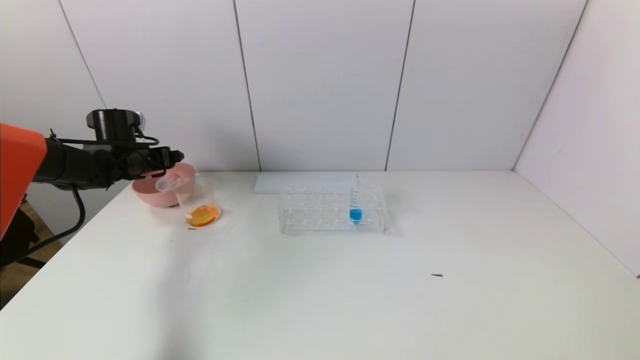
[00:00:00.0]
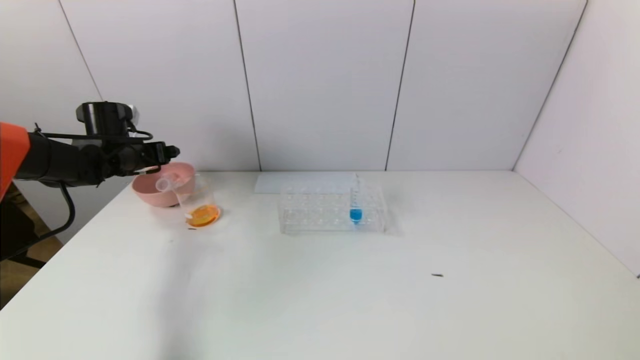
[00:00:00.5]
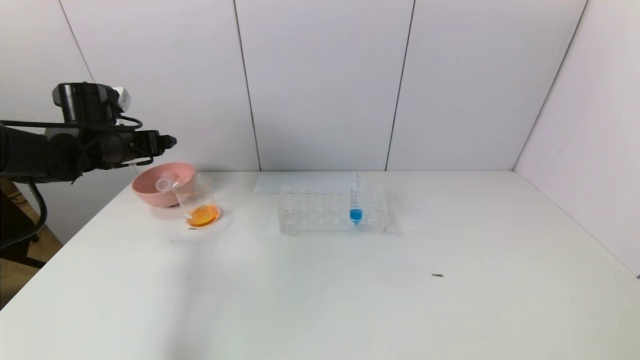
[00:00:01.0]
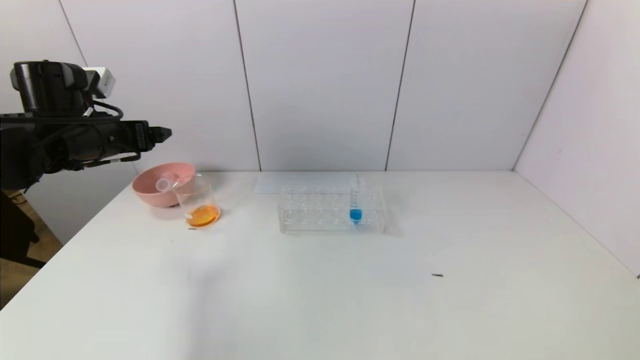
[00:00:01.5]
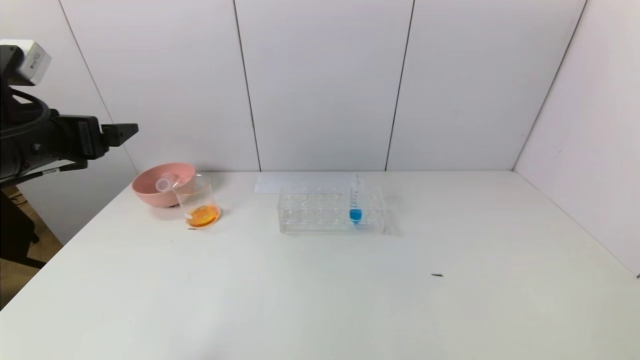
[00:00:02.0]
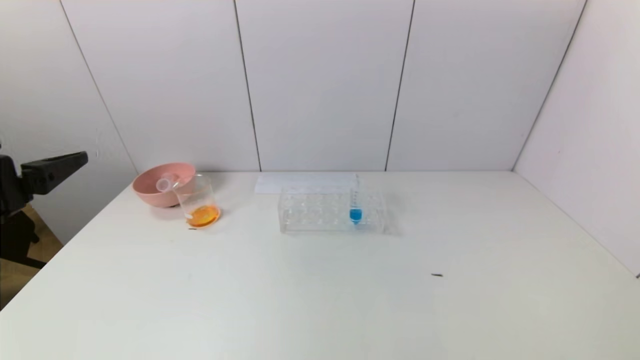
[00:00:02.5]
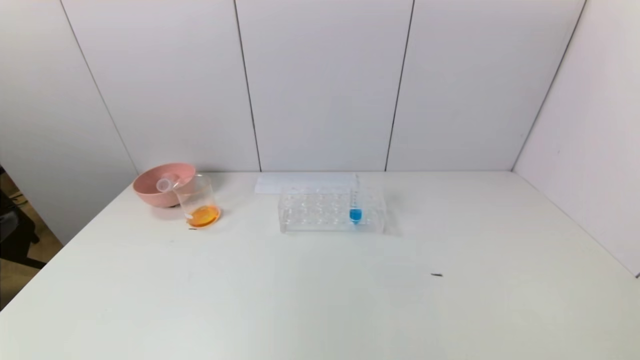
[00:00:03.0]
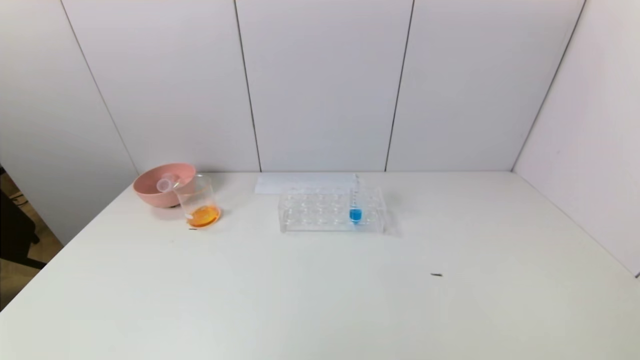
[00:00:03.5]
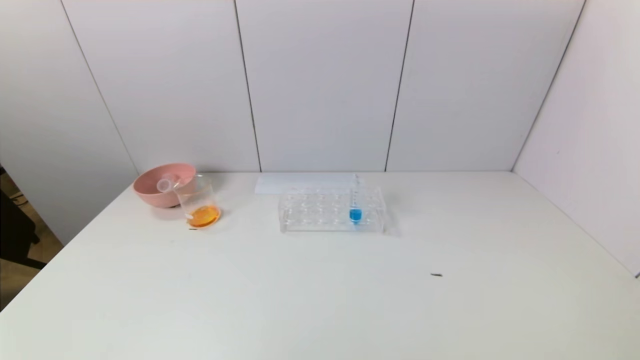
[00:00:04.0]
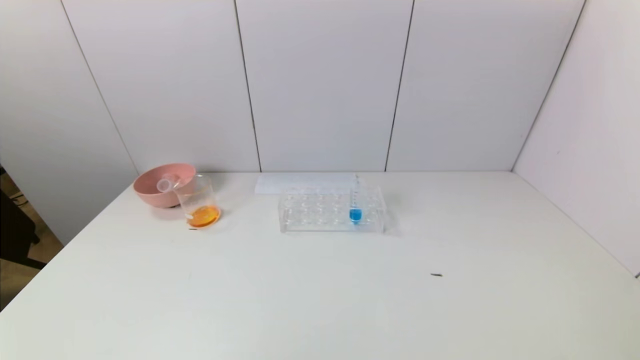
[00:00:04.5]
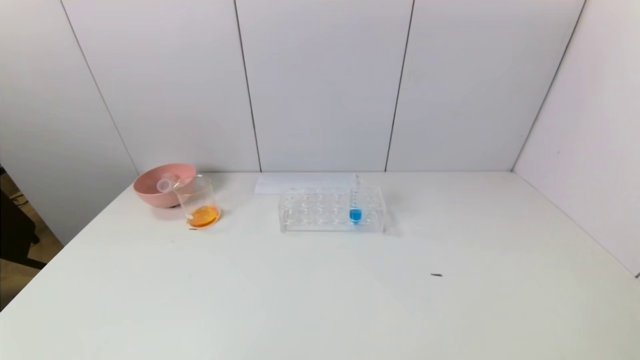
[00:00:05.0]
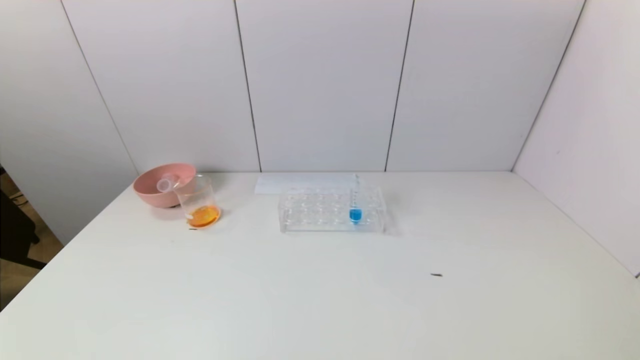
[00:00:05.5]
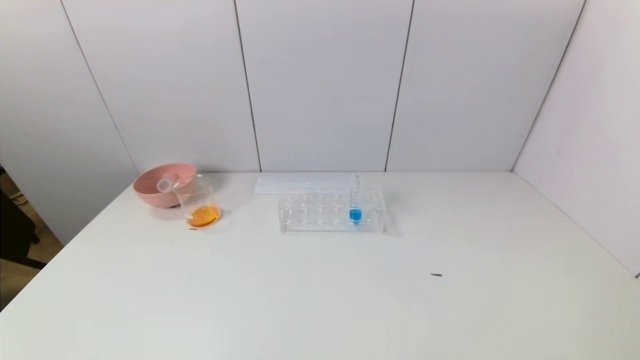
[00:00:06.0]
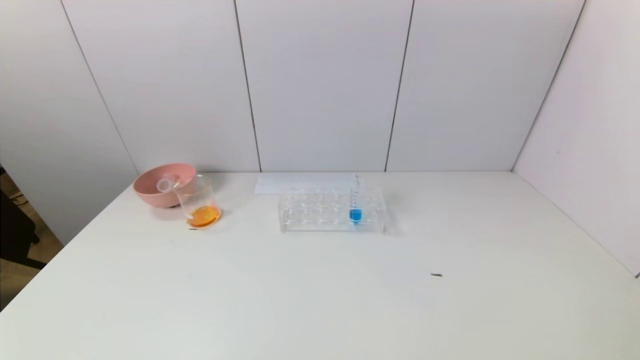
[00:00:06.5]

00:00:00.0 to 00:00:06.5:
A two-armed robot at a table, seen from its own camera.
Task of the whole recording: pick up the test tube with yellow pigment and the test tube with red pigment by grippers and pour them into the beaker.
00:00:00.0 to 00:00:02.0: The left gripper heads backward and upward, covering some 25 cm.
00:00:02.0 to 00:00:04.5: The left gripper is displaced backward and downward by approximately 30 cm.
